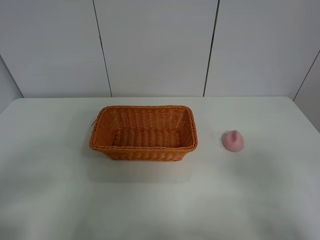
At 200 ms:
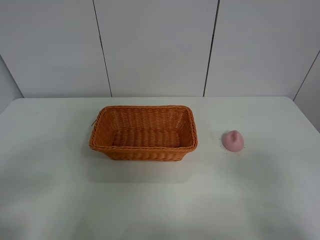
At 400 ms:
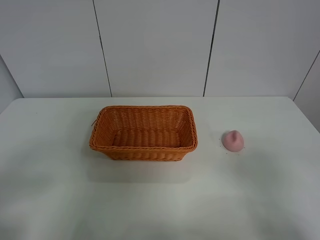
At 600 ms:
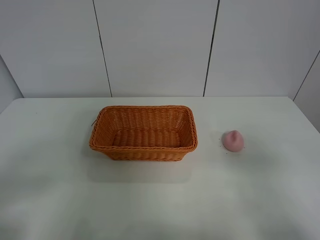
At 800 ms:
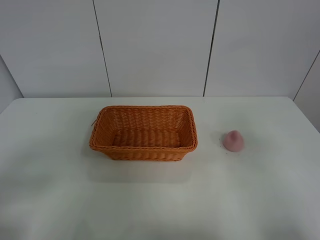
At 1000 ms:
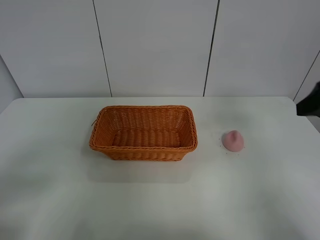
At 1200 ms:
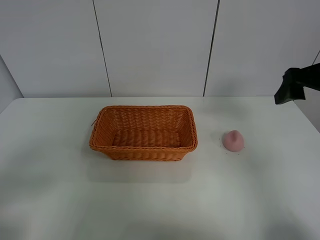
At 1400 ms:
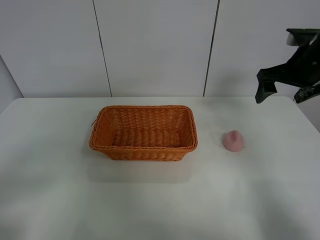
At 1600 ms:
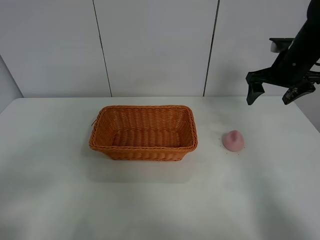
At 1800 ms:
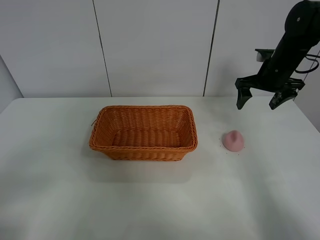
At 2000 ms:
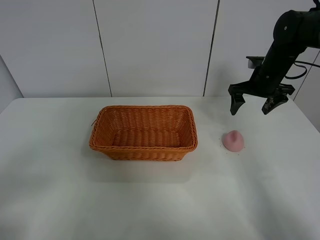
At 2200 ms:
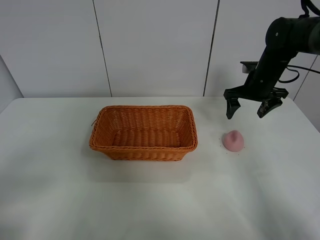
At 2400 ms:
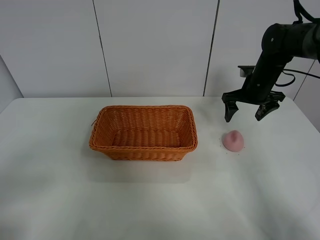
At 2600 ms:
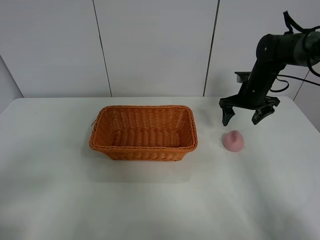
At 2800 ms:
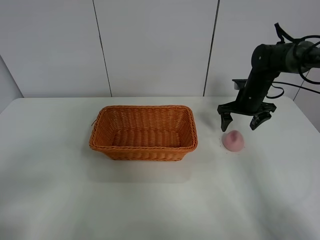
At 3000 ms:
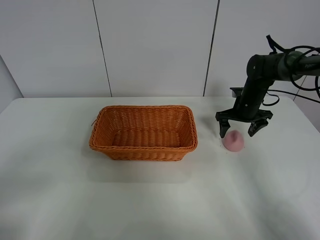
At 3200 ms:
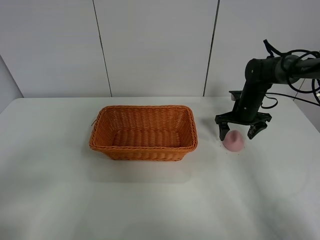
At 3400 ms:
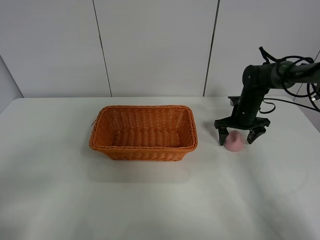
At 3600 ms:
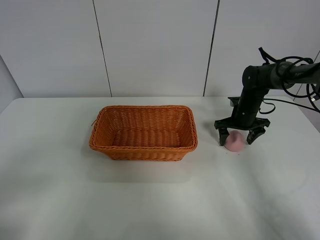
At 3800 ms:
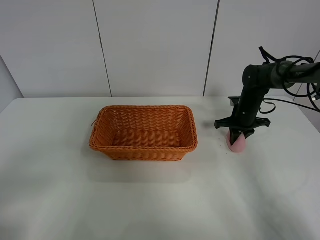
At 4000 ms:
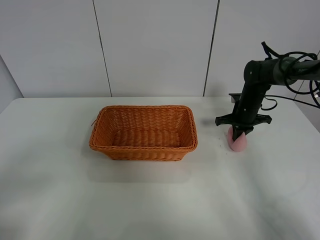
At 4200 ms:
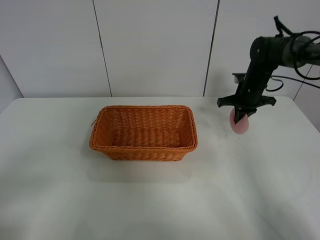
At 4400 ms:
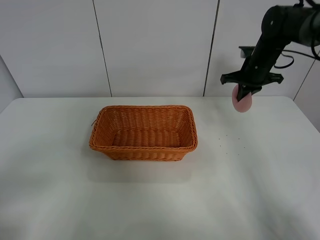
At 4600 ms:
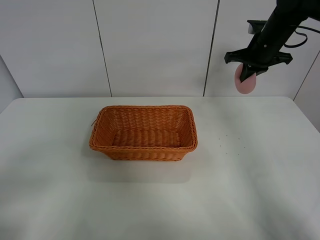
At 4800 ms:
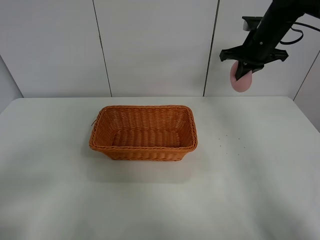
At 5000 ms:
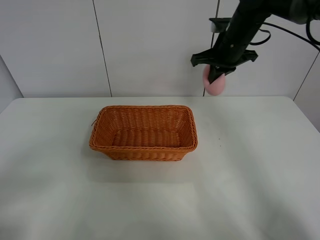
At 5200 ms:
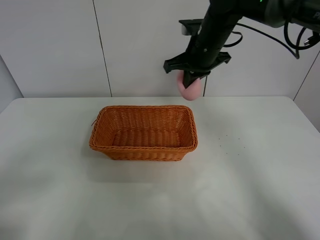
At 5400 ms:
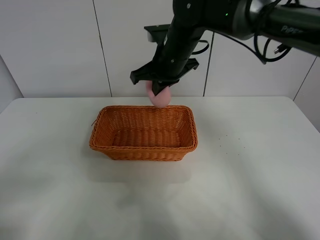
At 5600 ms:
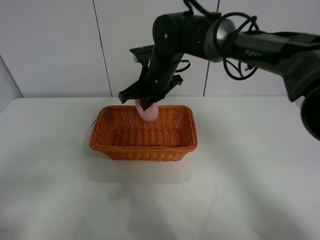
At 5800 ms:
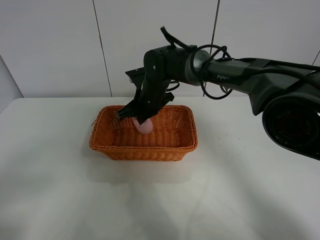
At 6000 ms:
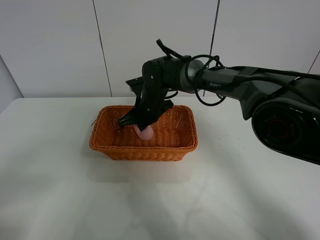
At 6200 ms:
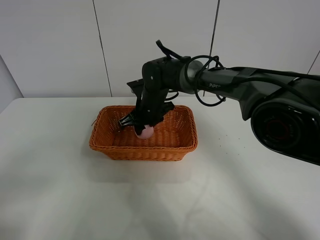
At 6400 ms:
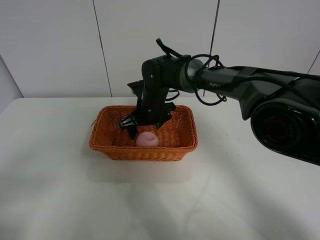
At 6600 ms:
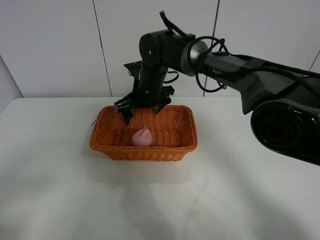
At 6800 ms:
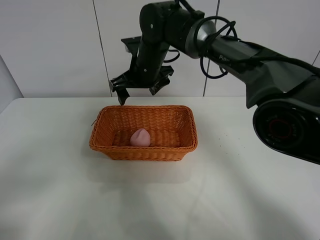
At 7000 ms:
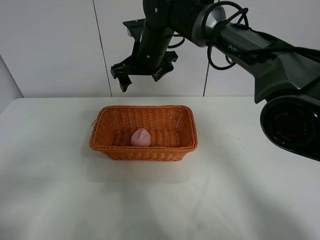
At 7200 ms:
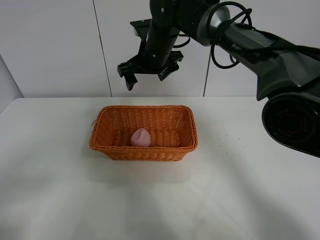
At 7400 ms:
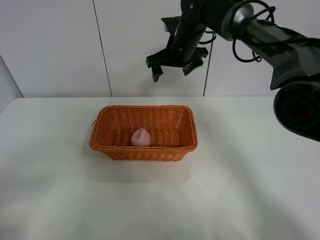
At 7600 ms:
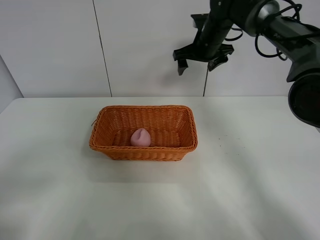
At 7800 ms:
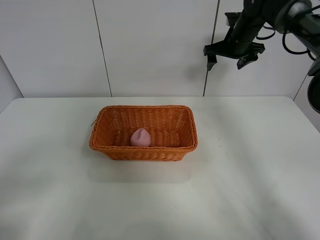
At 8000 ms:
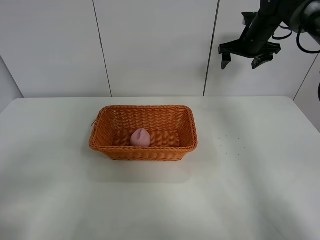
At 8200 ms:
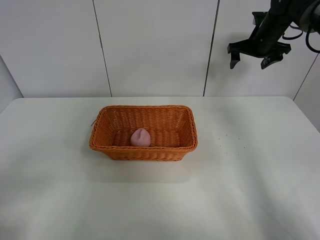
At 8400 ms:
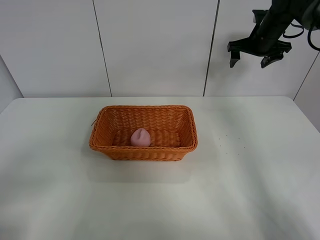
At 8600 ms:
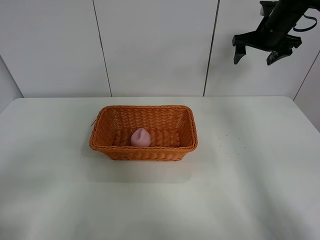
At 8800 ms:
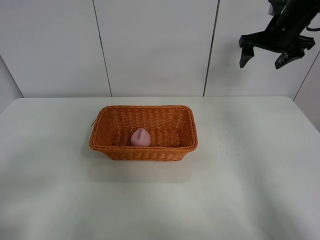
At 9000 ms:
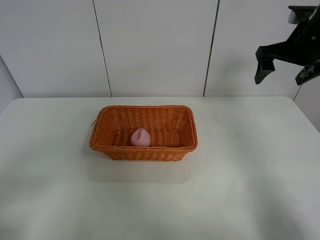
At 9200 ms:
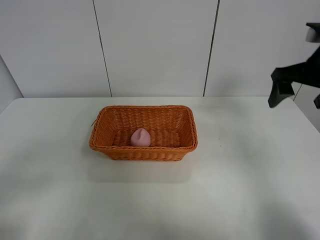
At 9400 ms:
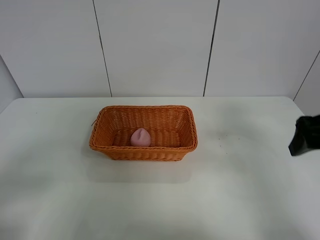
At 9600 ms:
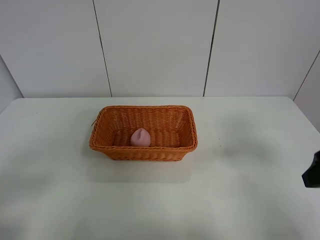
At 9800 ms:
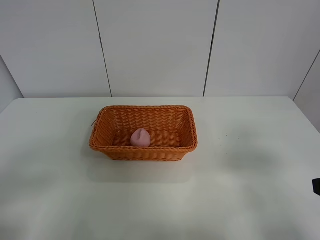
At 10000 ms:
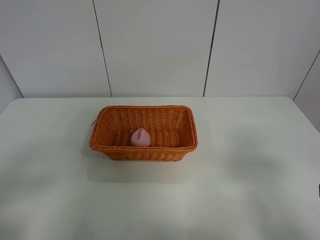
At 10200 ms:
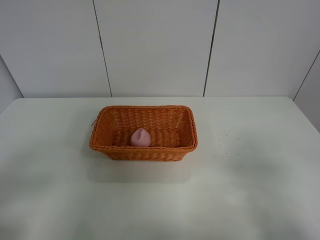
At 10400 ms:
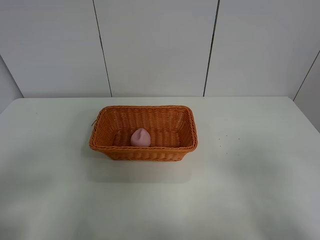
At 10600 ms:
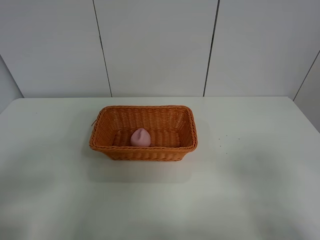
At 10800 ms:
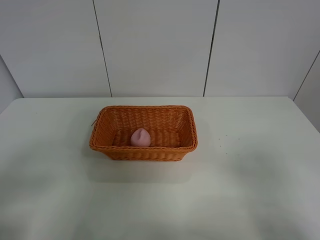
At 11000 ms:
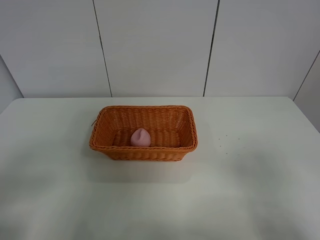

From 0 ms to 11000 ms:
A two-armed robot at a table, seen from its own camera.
Step, from 0 ms to 4000 ms: Grasp the peach with right gripper.
Step, from 4200 ms to 6800 ms: Place the peach in the basket with right gripper.
From 0 ms to 1600 ms: The right gripper is displaced forward by about 40 cm.
From 1600 ms to 3200 ms: The right gripper goes roughly 15 cm downward.
From 3200 ms to 4800 ms: The right gripper goes some 20 cm upward, and closes its fingers.
From 4800 ms to 6200 ms: The right gripper moves to the left and downward, some 30 cm, and opens up.
From 6200 ms to 7800 ms: The right gripper travels to the right, upward and forward by about 30 cm, and opens.
From 7800 ms to 9400 ms: The right gripper goes about 35 cm backward.
From 9400 ms to 11000 ms: The right gripper is displaced backward by approximately 20 cm.
